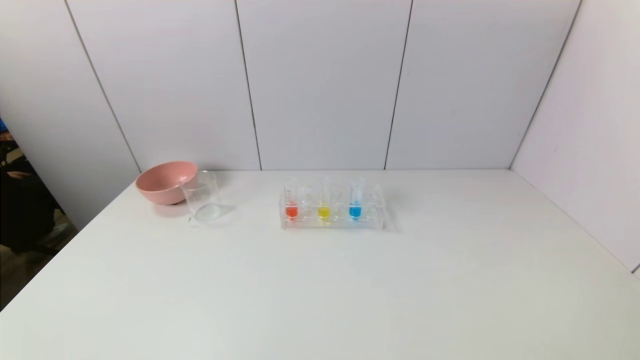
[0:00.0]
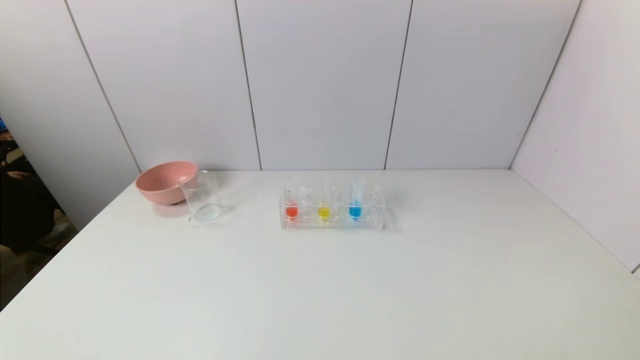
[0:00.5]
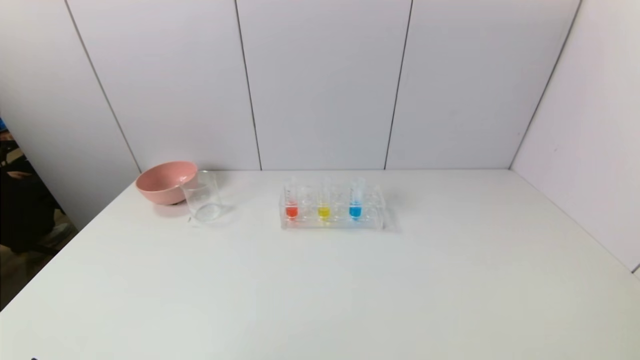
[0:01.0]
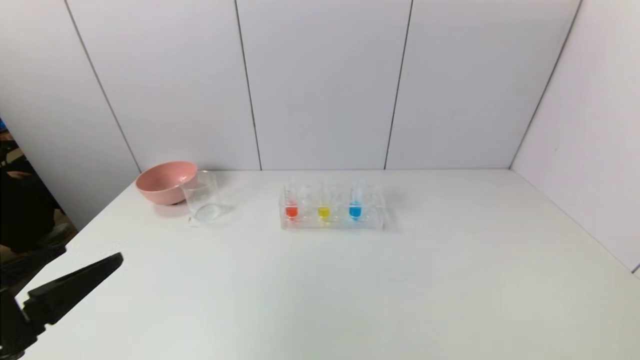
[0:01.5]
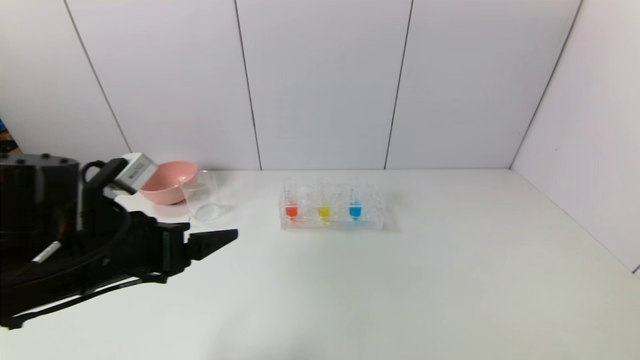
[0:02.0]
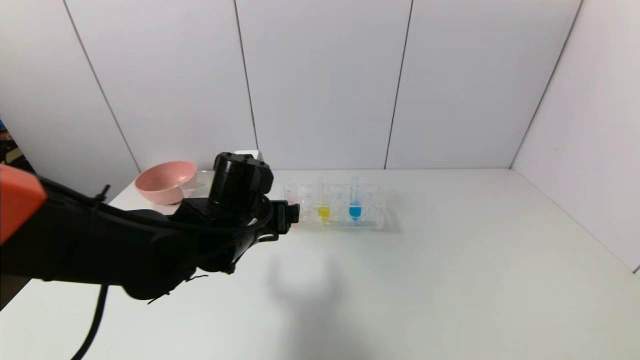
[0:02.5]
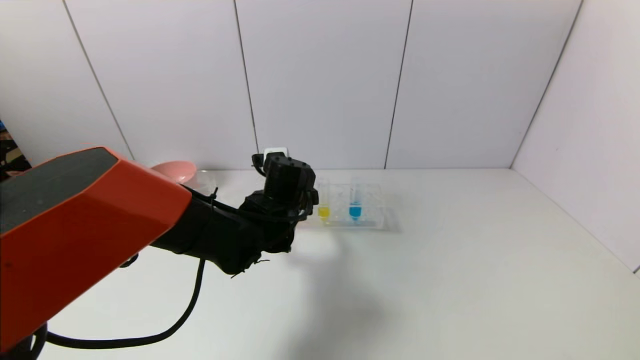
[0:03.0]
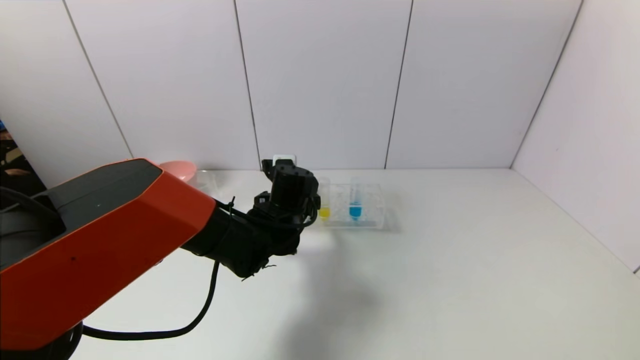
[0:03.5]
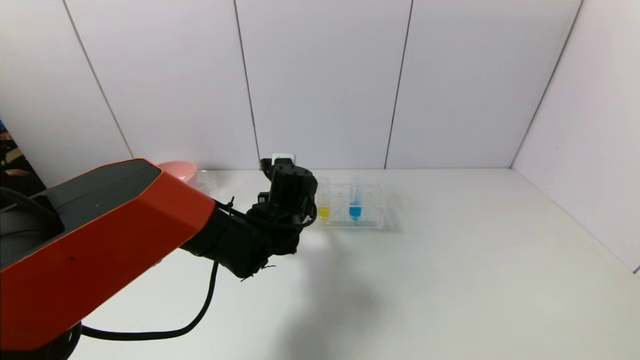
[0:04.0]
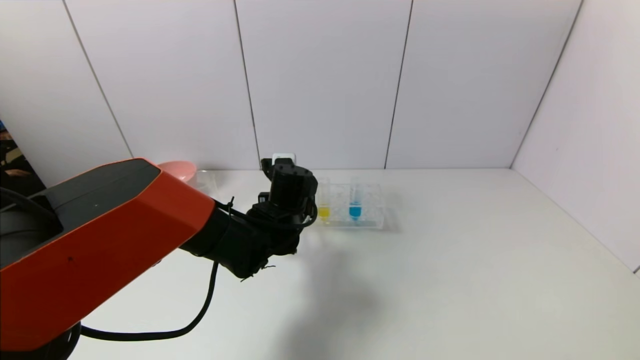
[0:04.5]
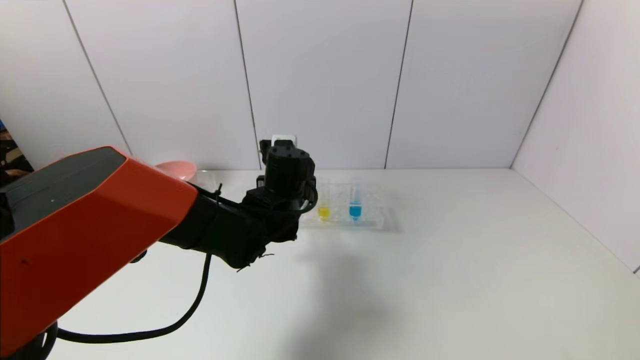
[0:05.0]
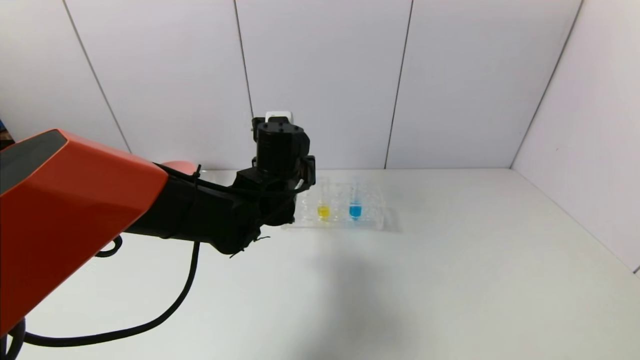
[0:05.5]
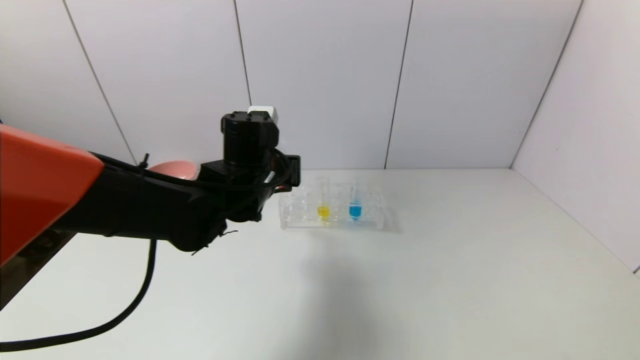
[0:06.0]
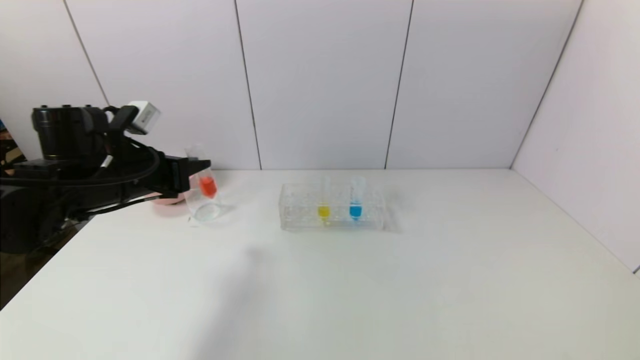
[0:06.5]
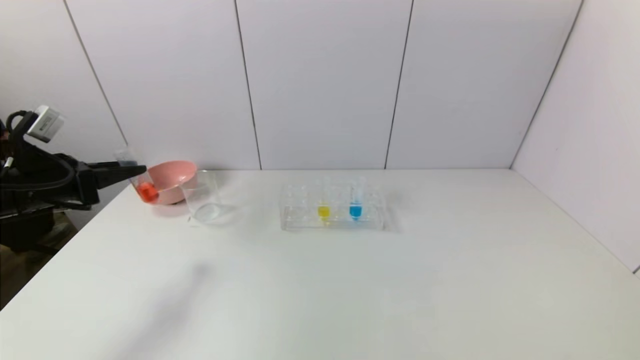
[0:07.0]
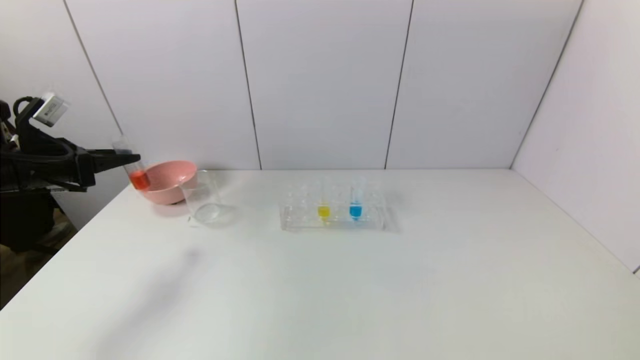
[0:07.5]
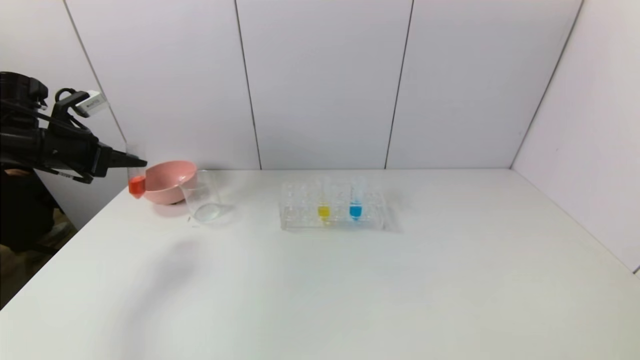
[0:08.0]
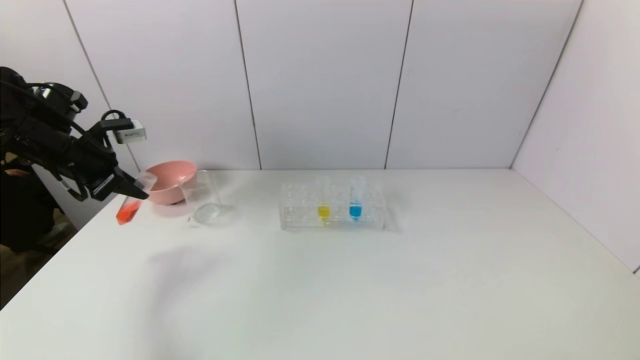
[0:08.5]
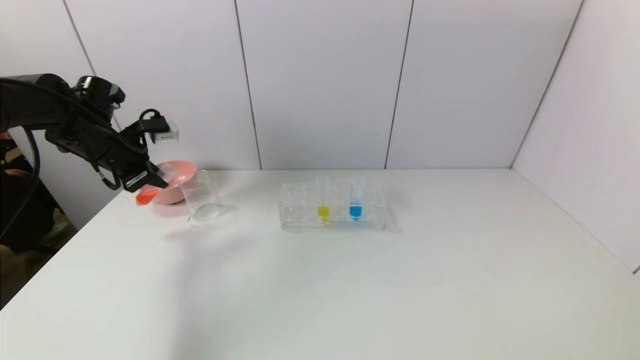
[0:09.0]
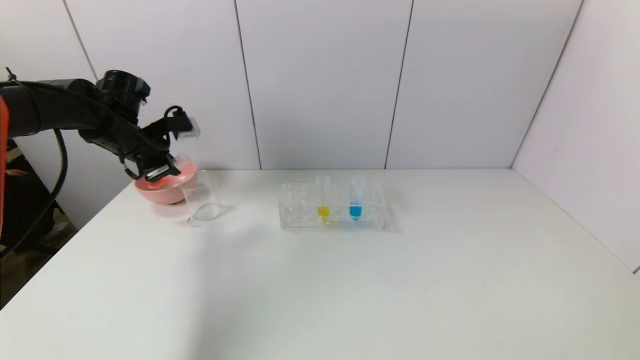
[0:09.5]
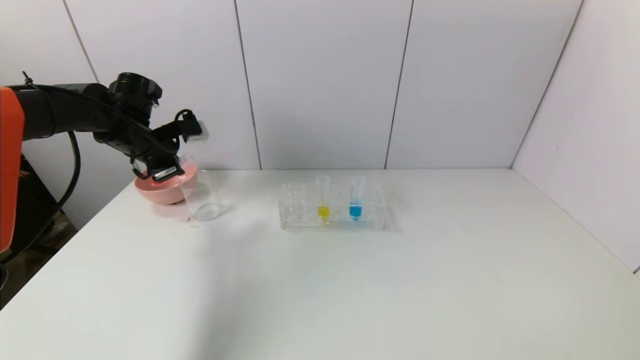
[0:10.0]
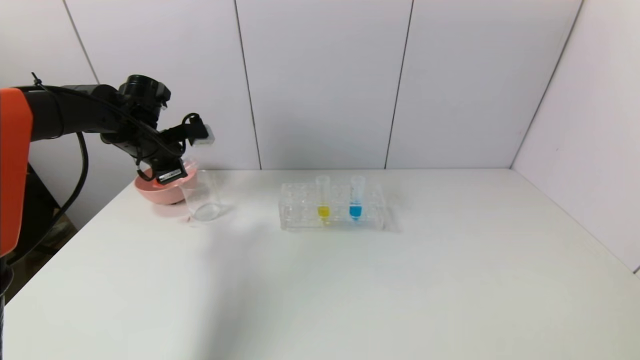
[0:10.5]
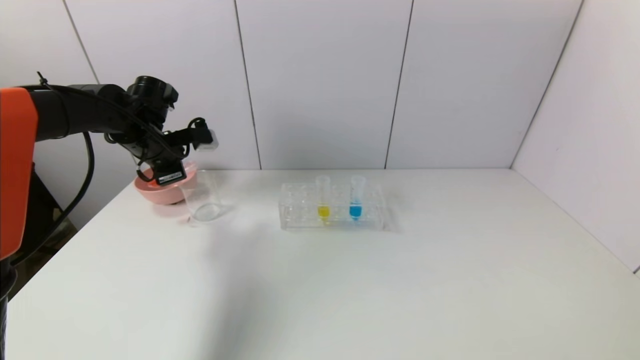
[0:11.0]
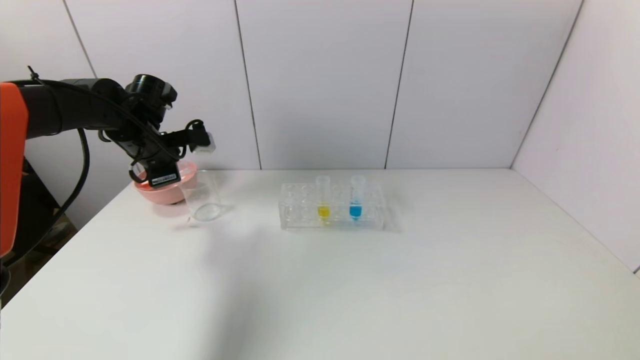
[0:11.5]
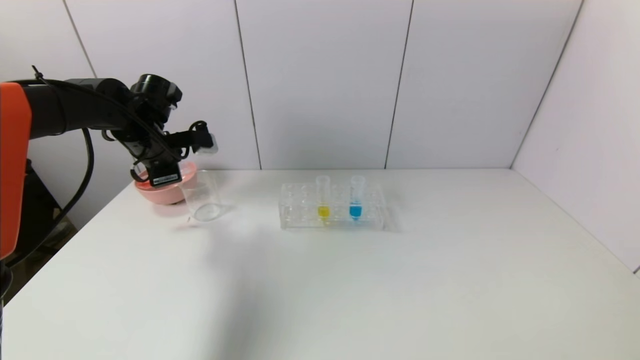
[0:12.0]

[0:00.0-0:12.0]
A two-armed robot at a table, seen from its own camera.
Task of the whole recording: pick up the test tube with red pigment and the test tube with blue pigment by grippers and pour them into the container.
Step, 0:00.0 to 0:04.0: Grasp the red reagent with the left gripper.
0:00.0 to 0:02.0: The left gripper moves forward, upward and to the right, about 25 cm.
0:02.0 to 0:04.0: The left gripper moves to the right, forward and downward, about 25 cm, and closes up.
0:04.0 to 0:06.0: The left gripper shifts about 10 cm upward, and closes its fingers.
0:06.0 to 0:08.0: The left gripper shifts approximately 30 cm to the left.
0:08.0 to 0:10.0: The left gripper heads to the right and forward, covering some 10 cm.
0:10.0 to 0:12.0: There are only small adjustments of the grippers.

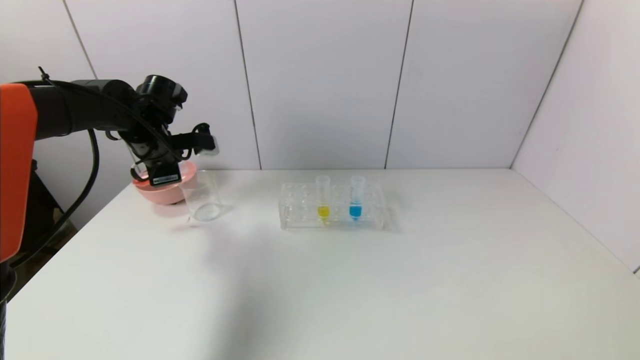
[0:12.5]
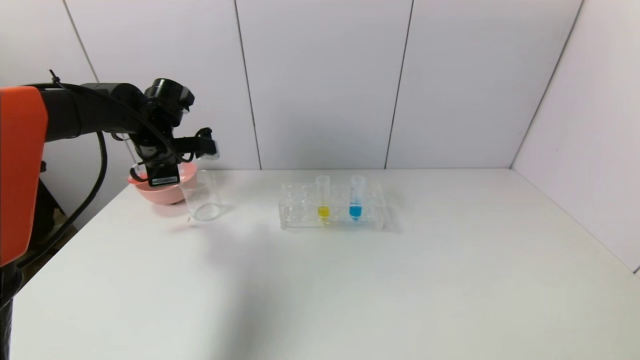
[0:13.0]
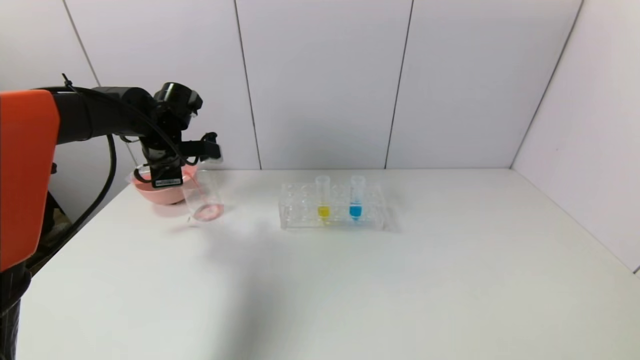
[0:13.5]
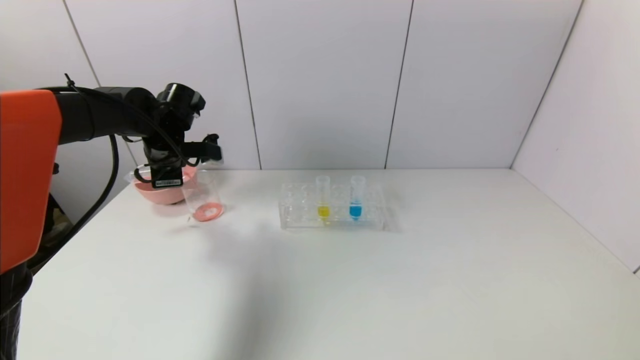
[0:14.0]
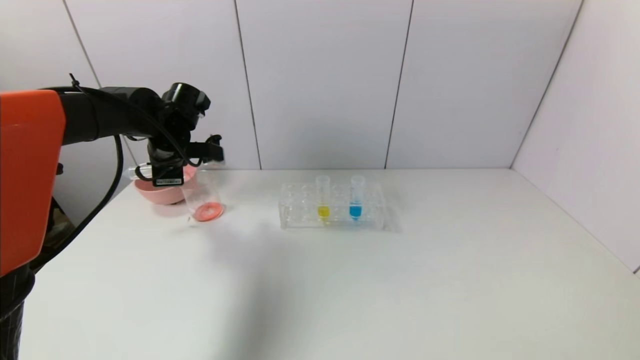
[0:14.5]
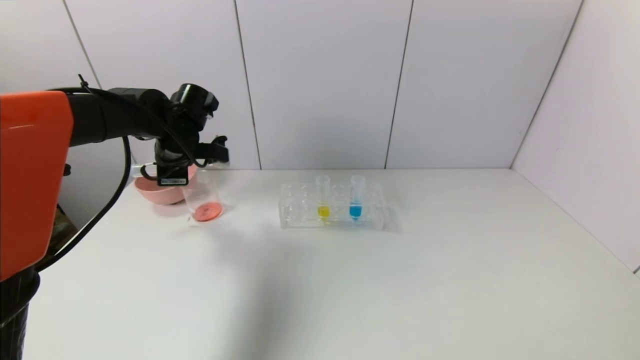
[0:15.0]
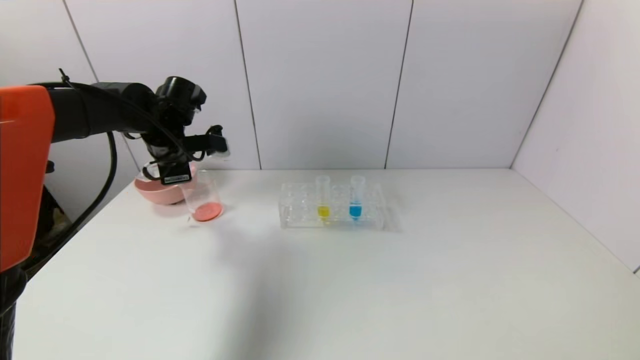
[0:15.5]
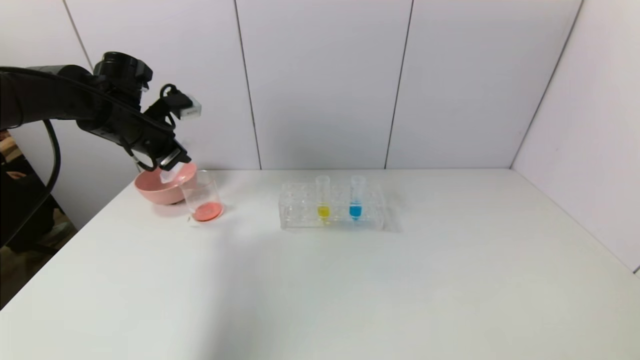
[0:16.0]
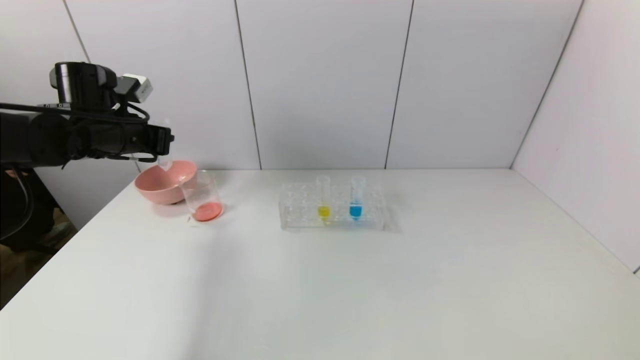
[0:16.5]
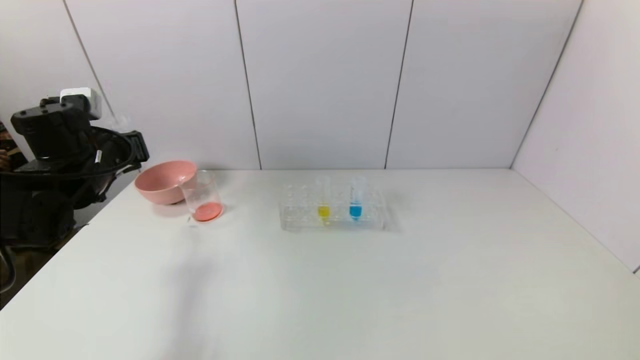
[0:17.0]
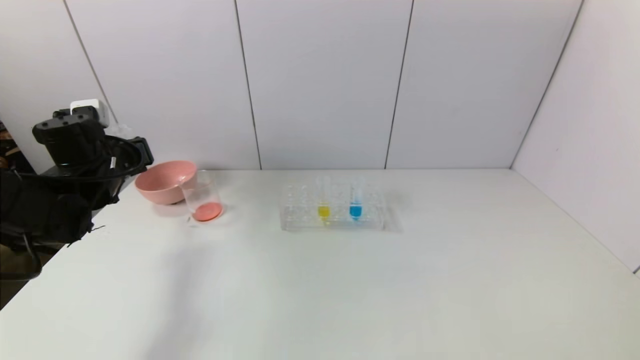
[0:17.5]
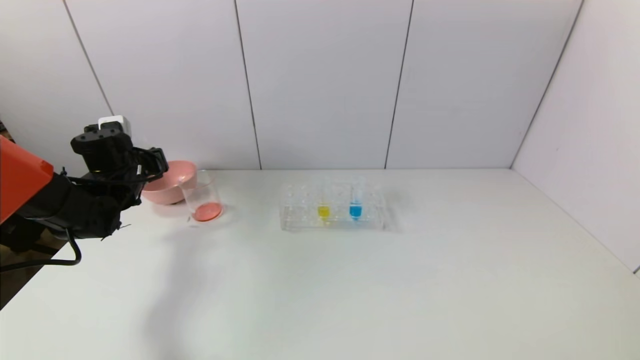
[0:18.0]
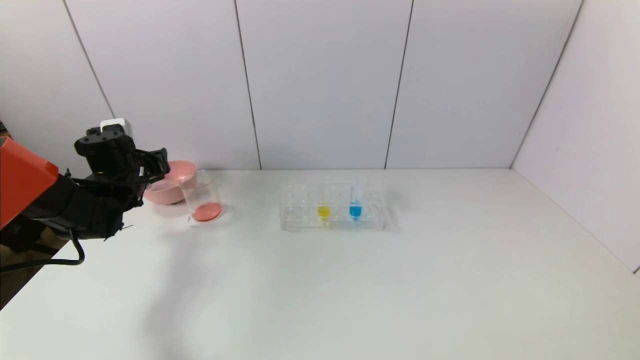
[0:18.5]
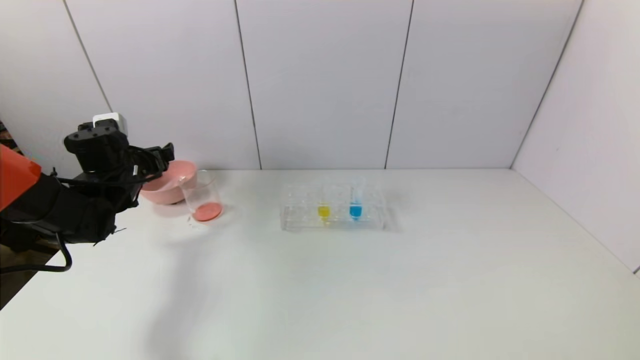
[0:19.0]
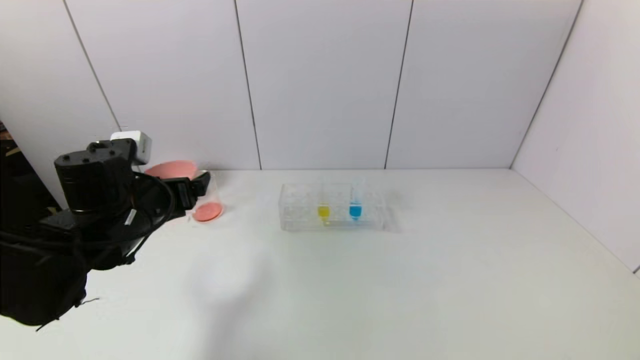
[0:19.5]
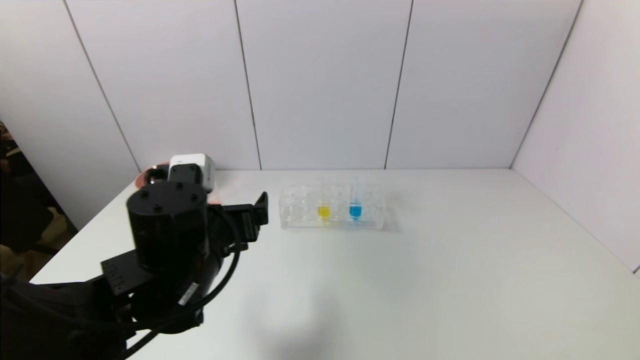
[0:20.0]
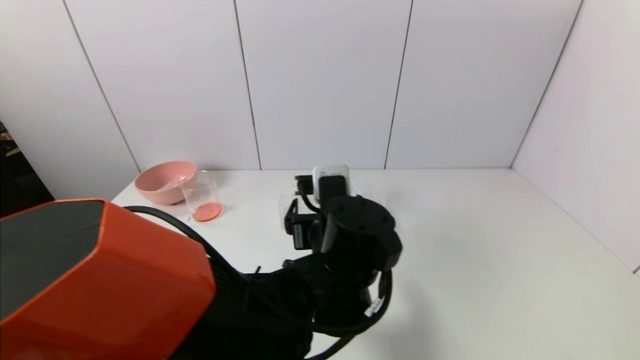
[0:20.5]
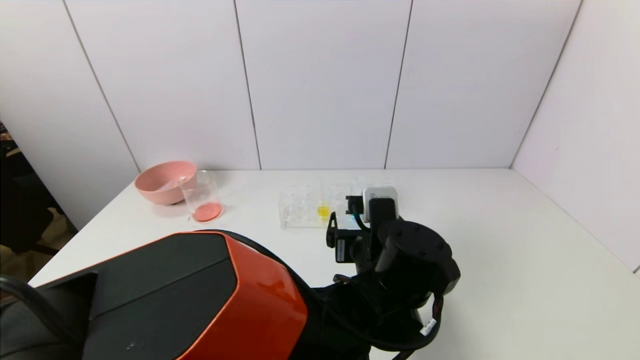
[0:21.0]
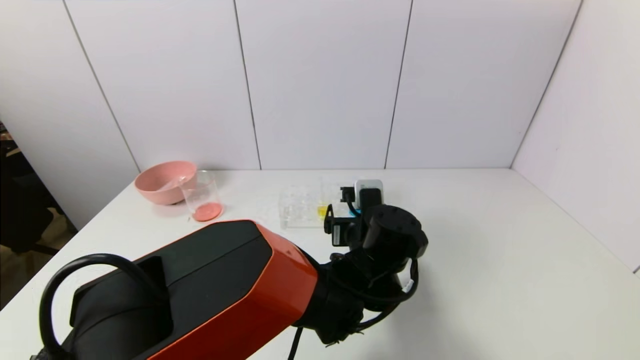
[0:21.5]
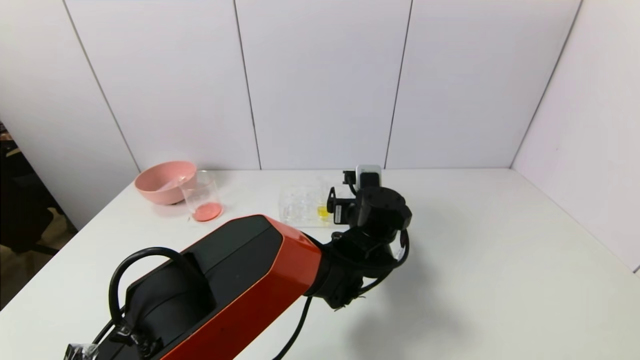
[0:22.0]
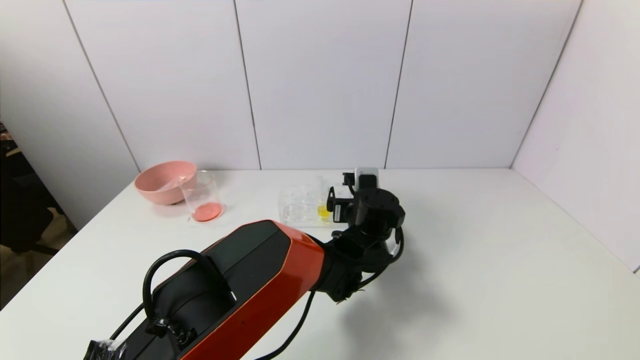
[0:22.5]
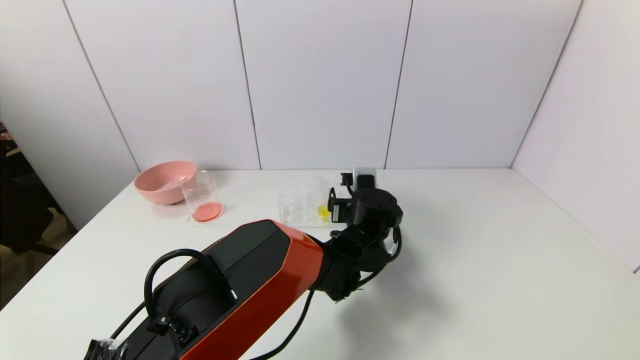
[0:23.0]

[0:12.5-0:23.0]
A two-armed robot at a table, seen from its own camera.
Task of the whole recording: pick up the test tube with red pigment and the test tube with blue pigment by grippers and pour them into the container.
Step, 0:12.5 to 0:15.5: Pour the red reagent into the graduated cylinder with the left gripper.
Step, 0:16.0 to 0:18.5: Place the test tube into the bowl with the left gripper.
0:12.5 to 0:14.5: The grippers stay close to where they were, moving slightly.
0:14.5 to 0:16.5: The left gripper moves to the left, approximately 5 cm.
0:16.5 to 0:19.0: The left gripper shifts roughly 10 cm downward, and opens its fingers.
0:19.0 to 0:21.0: The left gripper moves to the right, some 40 cm.
0:21.0 to 0:23.0: The left gripper goes roughly 15 cm forward.
